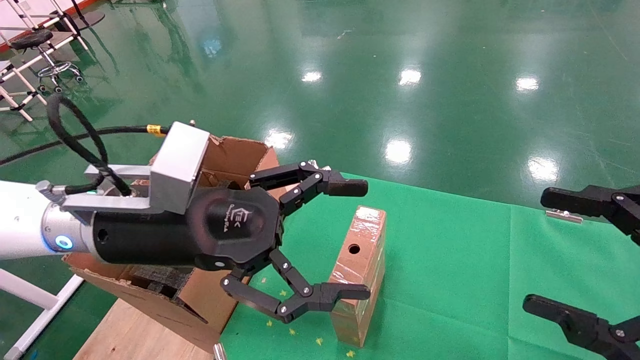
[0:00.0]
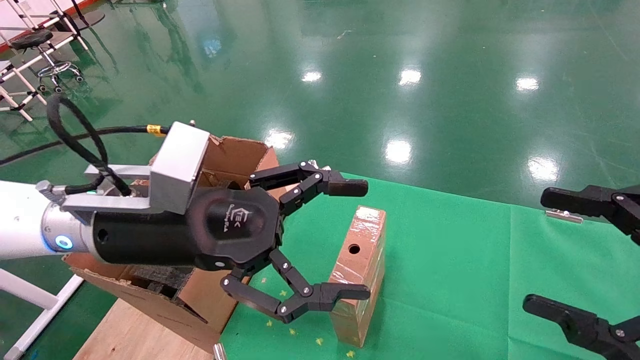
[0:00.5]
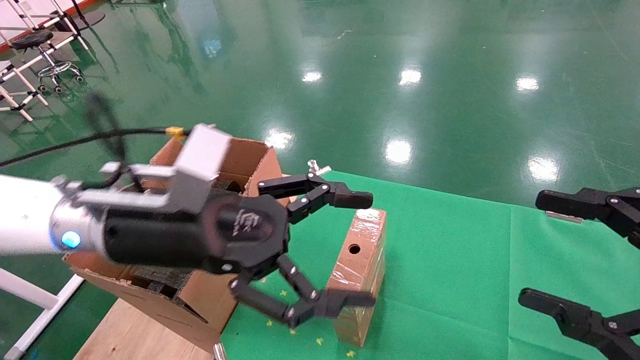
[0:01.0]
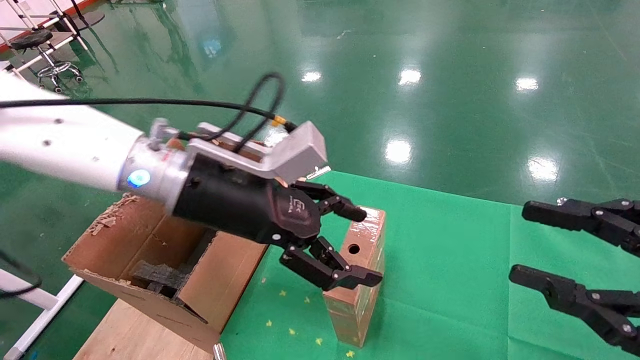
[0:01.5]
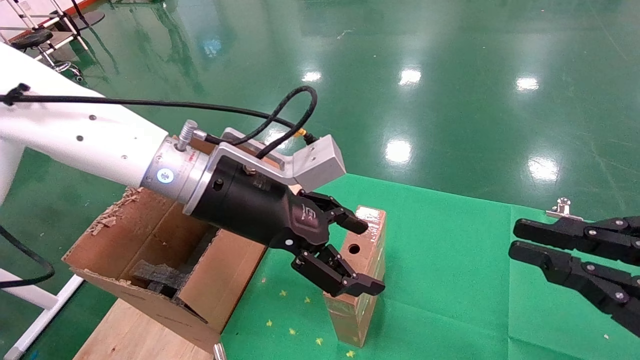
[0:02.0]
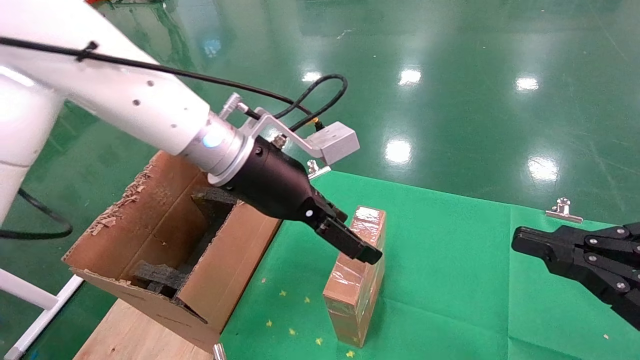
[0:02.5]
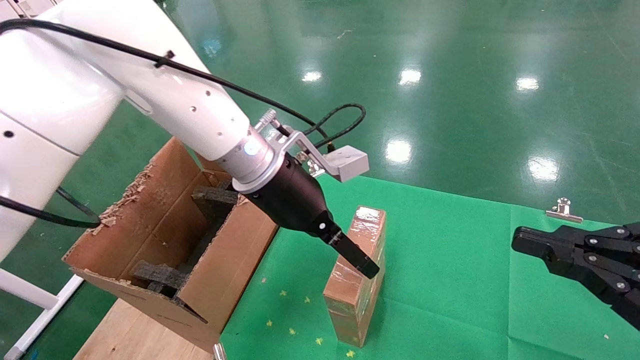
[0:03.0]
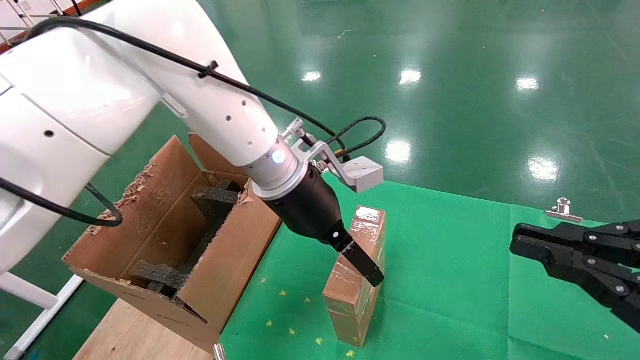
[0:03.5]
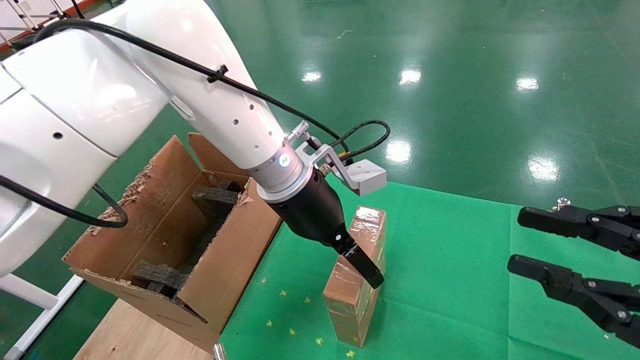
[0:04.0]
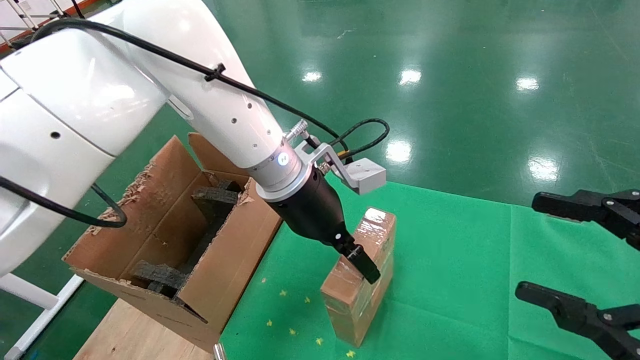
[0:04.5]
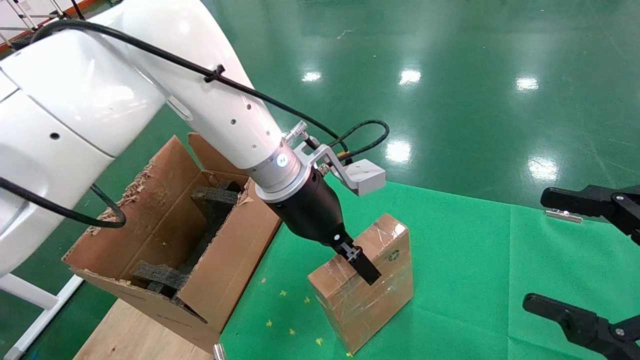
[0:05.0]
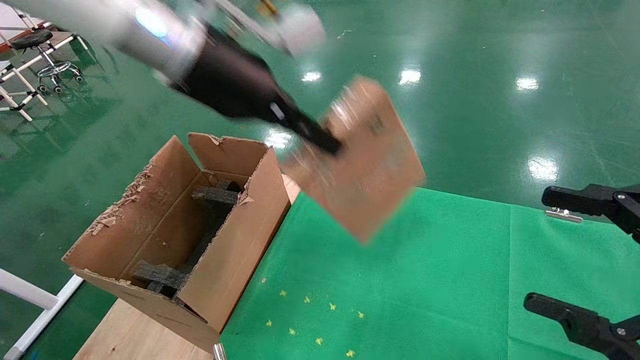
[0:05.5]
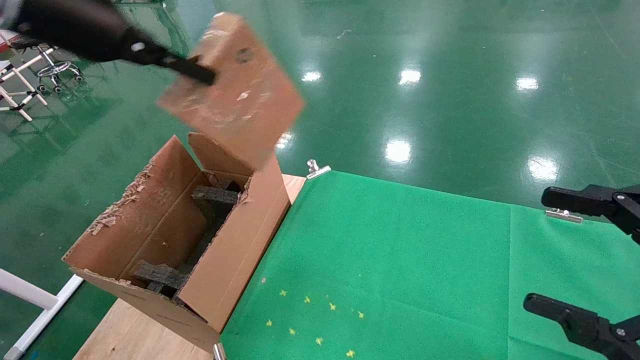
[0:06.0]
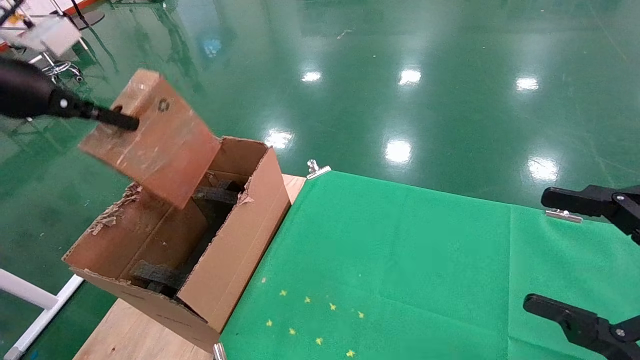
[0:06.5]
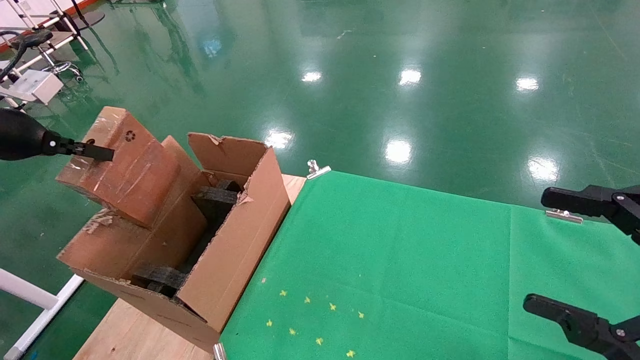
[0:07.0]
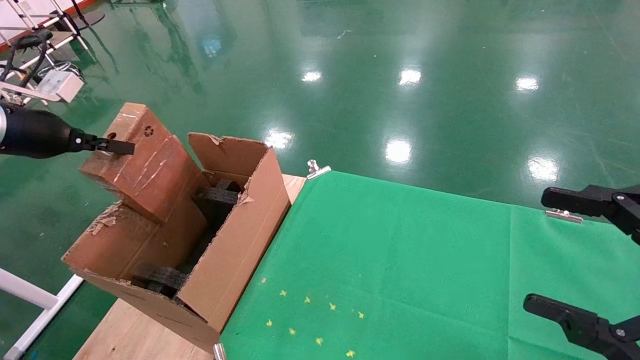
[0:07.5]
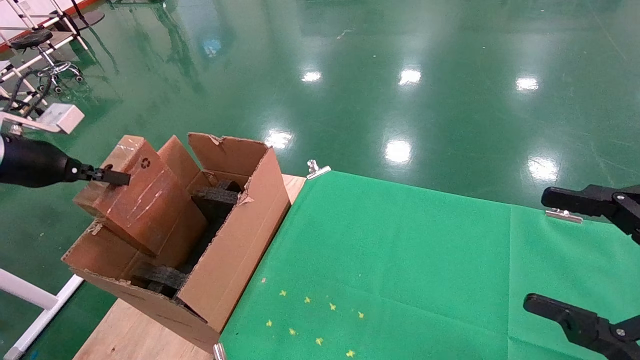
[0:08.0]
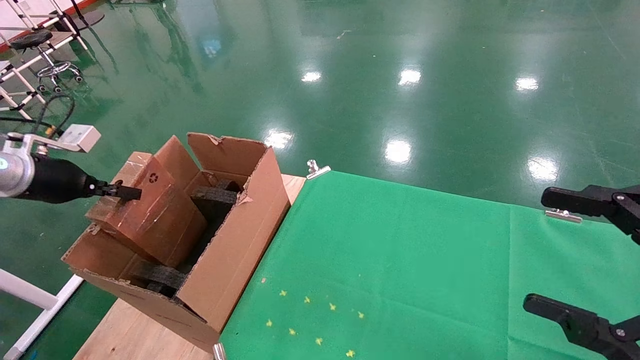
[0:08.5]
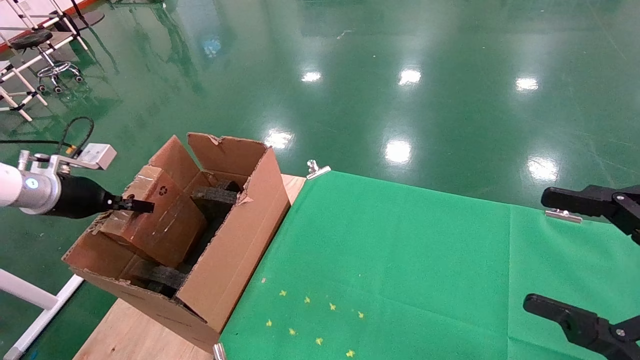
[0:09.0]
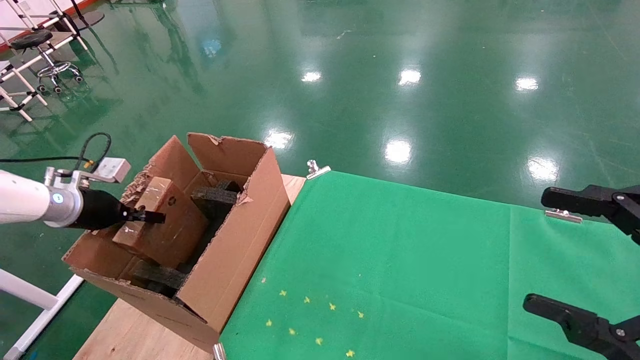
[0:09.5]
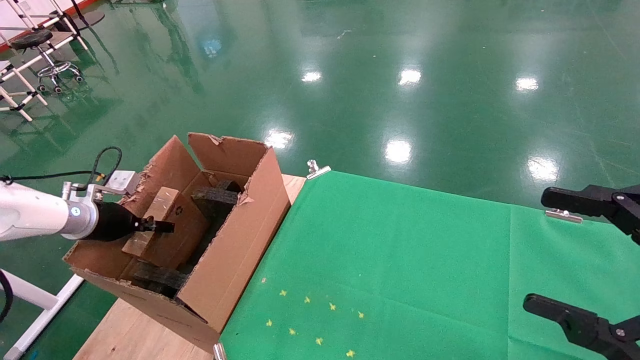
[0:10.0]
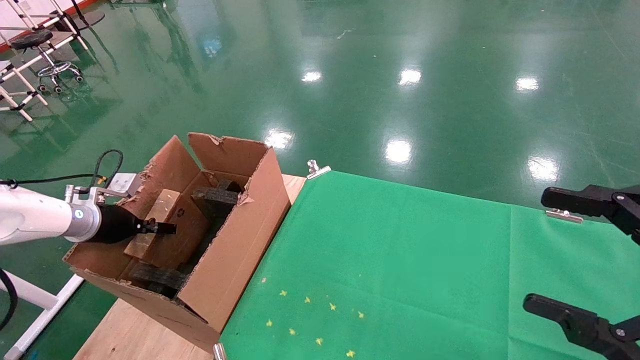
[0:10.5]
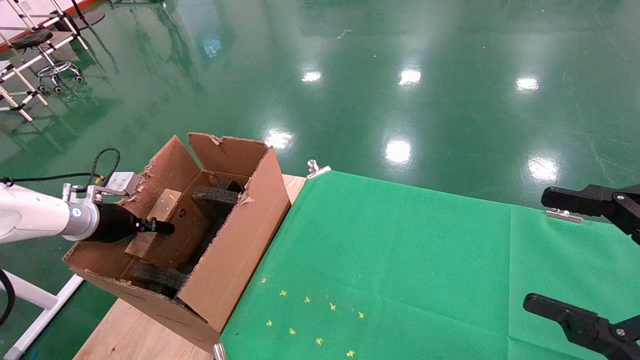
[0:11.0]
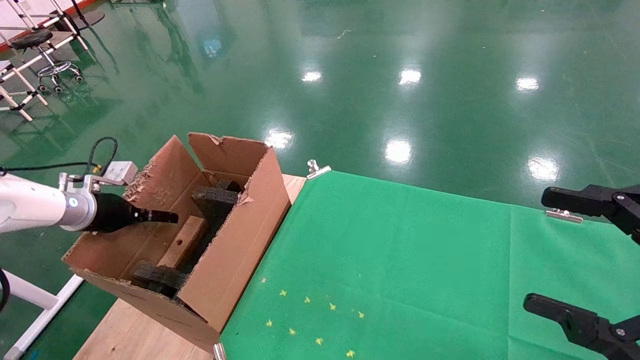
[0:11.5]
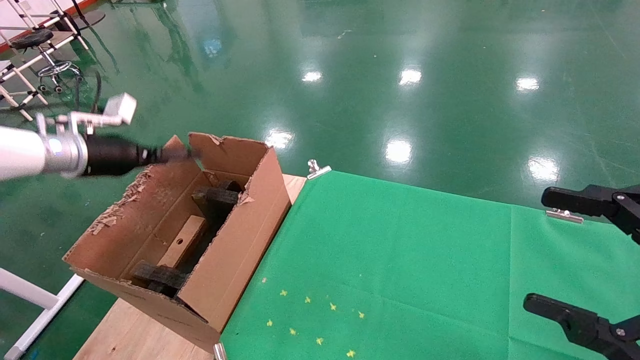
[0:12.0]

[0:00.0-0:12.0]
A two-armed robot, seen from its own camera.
Task of the whole recording: using a robotic arm to pick up a cardboard box and palace it the carton.
Step, 0:01.0 to 0:04.5: Pick up the mouse and the power cord paper box.
0:00.0 to 0:02.0: The left gripper is displaced forward and to the right by approximately 10 cm. The right gripper closes up.
0:02.0 to 0:04.0: The left gripper is displaced to the right and forward by about 10 cm.
0:04.0 to 0:06.0: The left gripper shifts some 30 cm to the left and upward, and closes. Meanwhile the right gripper opens.
0:06.0 to 0:08.0: The left gripper travels to the left and downward by some 25 cm.
0:08.0 to 0:10.0: The left gripper shifts approximately 15 cm downward and forward.
0:10.0 to 0:12.0: The left gripper travels upward by about 10 cm, and opens up.

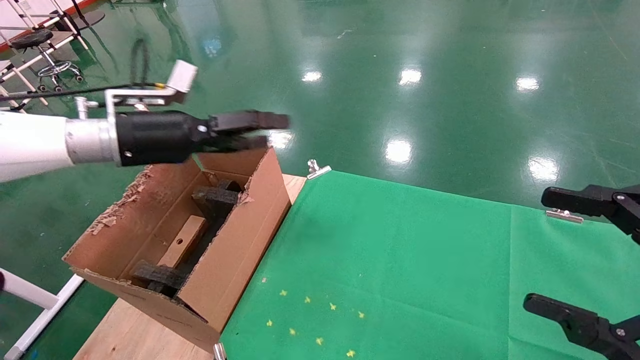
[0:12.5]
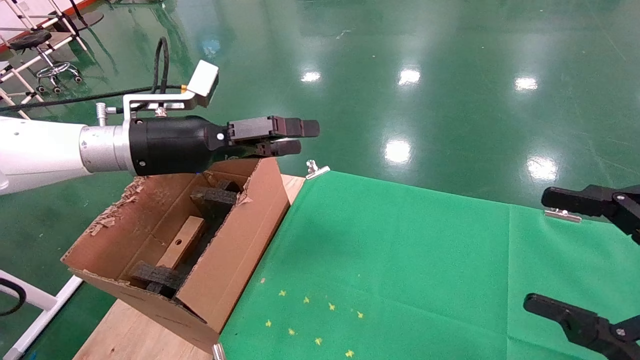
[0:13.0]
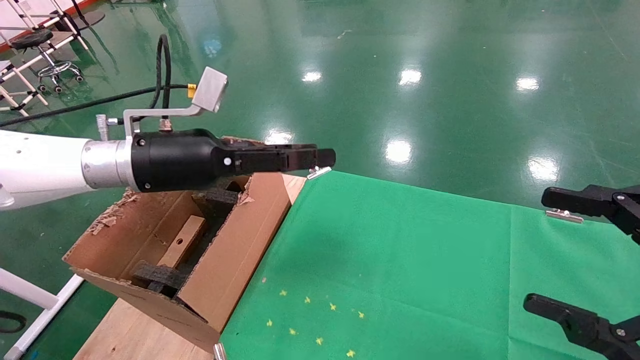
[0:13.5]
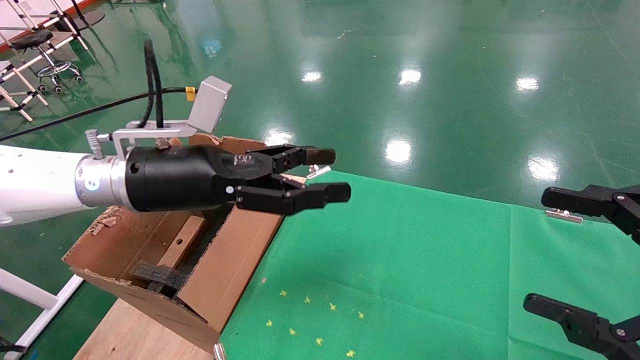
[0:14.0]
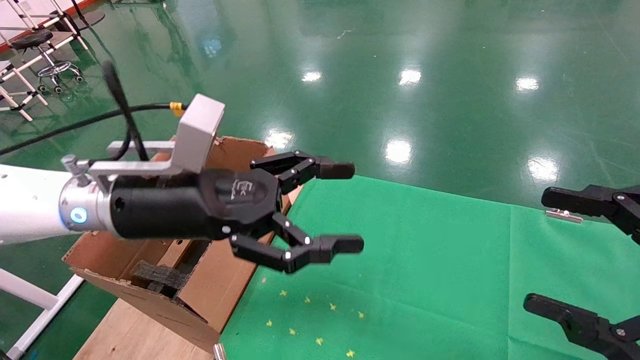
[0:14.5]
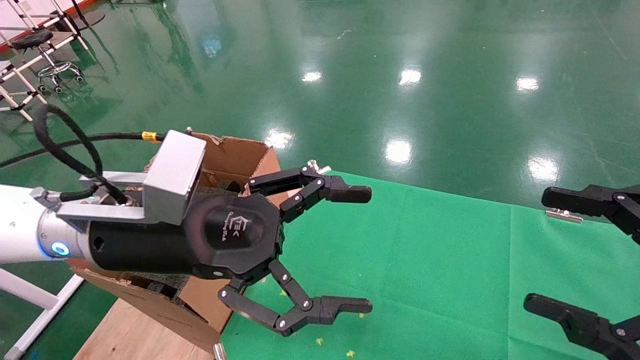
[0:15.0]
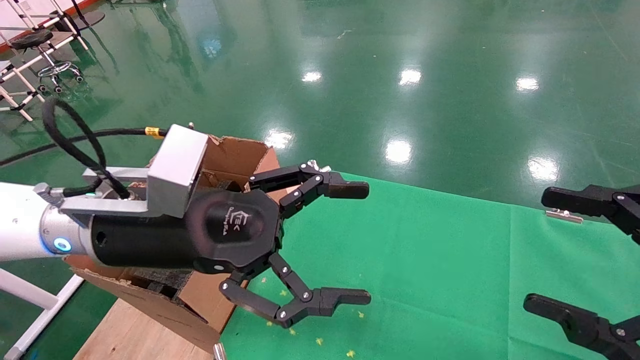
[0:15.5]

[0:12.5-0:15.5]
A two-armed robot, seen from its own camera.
Task of the whole recording: using a robotic arm to pick up a cardboard box and palace it the carton.
0:12.5 to 0:14.0: The left gripper moves to the right and backward, about 10 cm.
0:14.0 to 0:15.5: The left gripper goes roughly 5 cm backward.

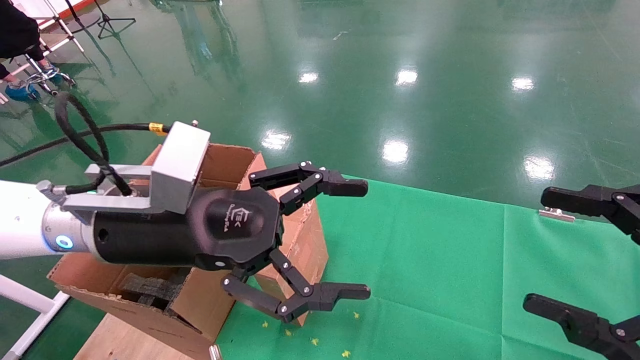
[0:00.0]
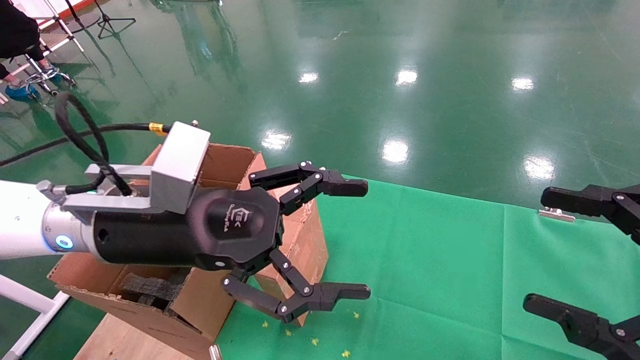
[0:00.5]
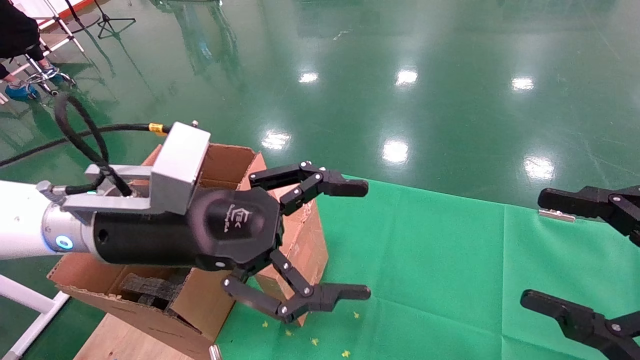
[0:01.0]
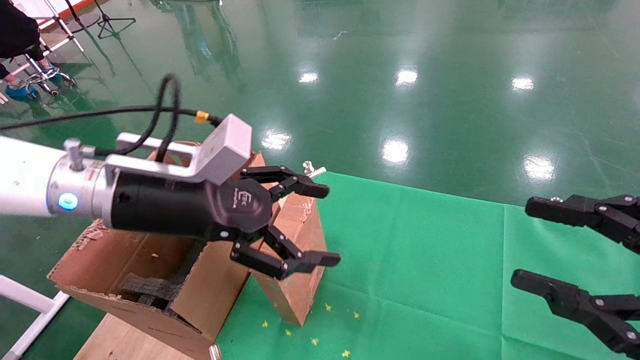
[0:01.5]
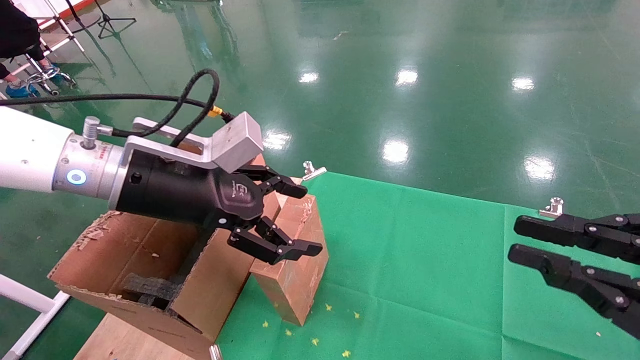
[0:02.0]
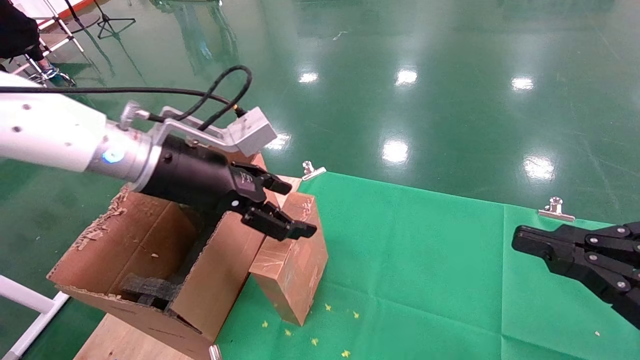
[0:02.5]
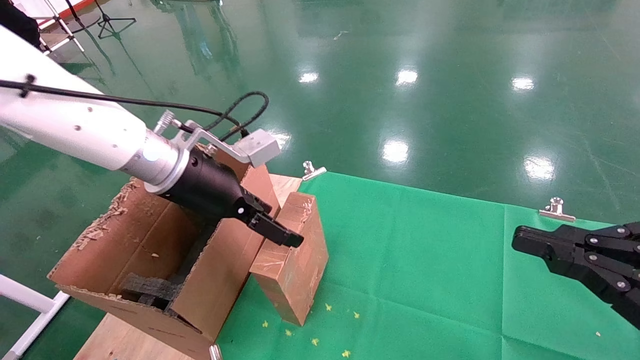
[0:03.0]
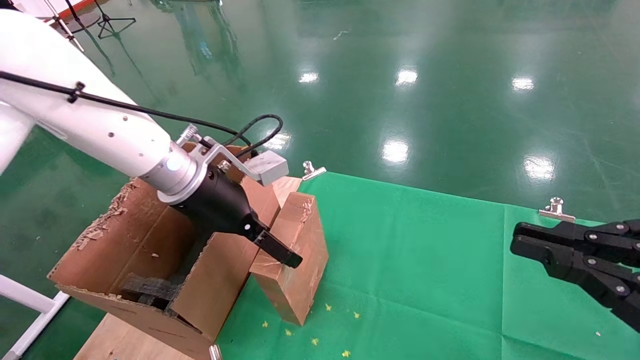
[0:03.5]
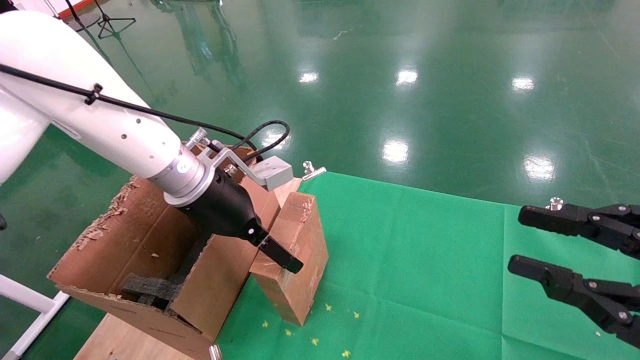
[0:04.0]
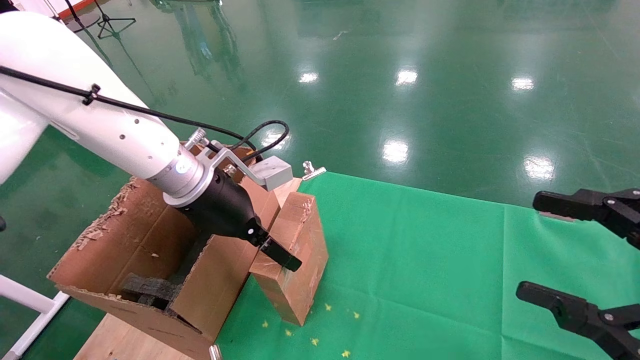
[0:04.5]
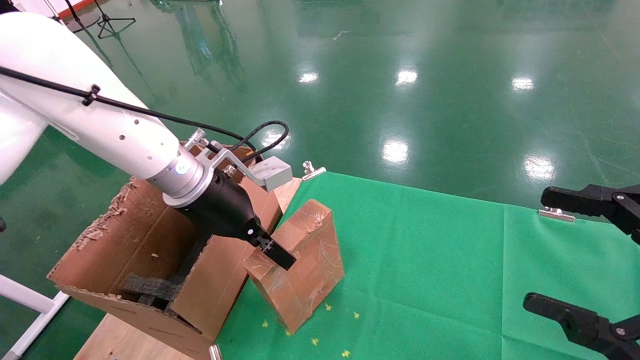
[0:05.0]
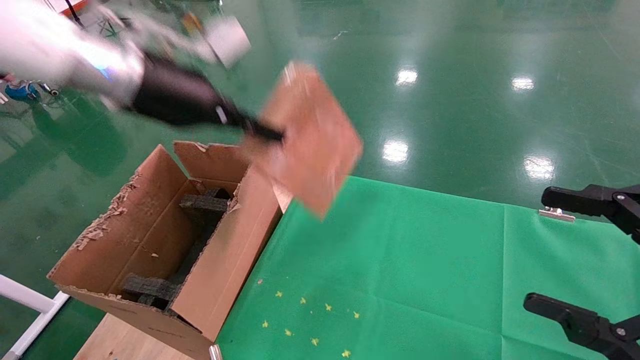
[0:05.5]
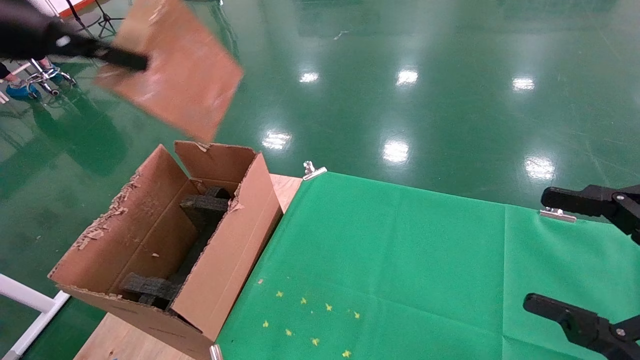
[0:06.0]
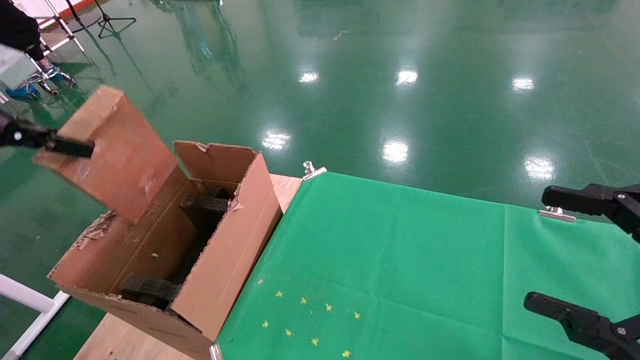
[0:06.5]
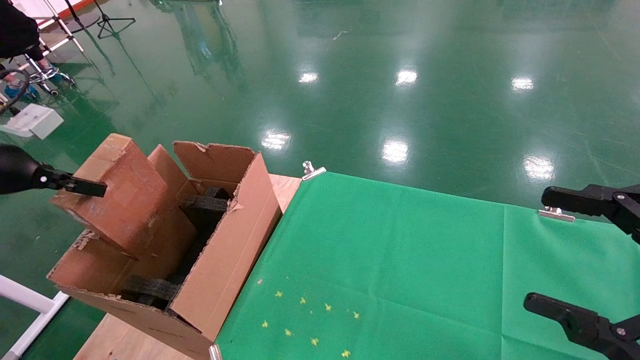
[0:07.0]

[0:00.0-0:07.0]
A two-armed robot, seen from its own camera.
Task of the whole recording: using a robotic arm to pick up a cardboard box and palace it the carton.
Step, 0:01.5 to 0:04.5: Pick up the mouse and the power cord paper box.
0:00.0 to 0:02.0: The right gripper closes, while the left gripper ends up some 5 cm from where it was.
0:02.0 to 0:03.5: The left gripper shifts roughly 5 cm forward.
0:03.5 to 0:05.0: The left gripper closes, while the right gripper opens its fingers.
0:05.0 to 0:07.0: The left gripper goes about 30 cm to the left.
